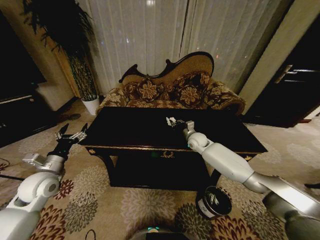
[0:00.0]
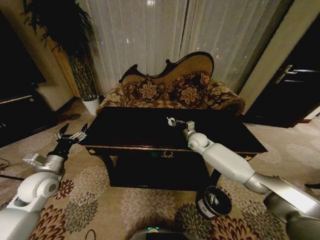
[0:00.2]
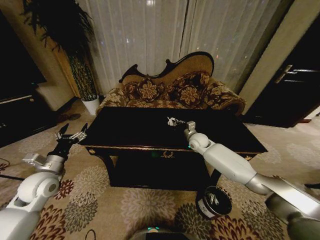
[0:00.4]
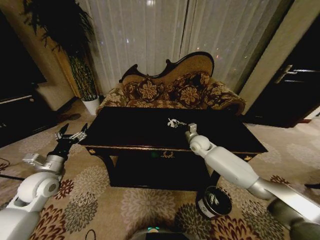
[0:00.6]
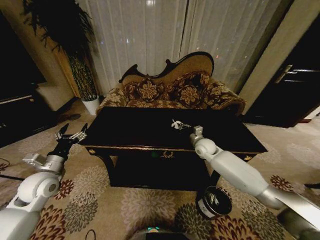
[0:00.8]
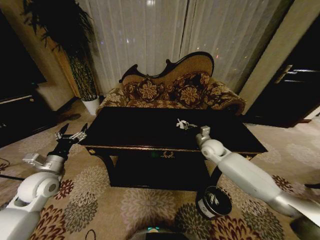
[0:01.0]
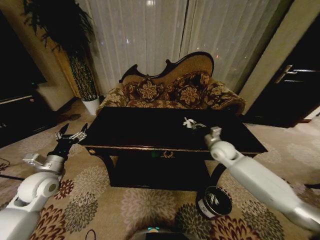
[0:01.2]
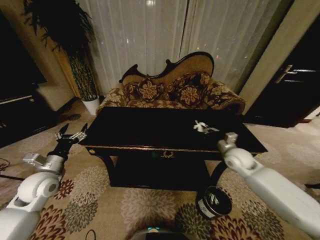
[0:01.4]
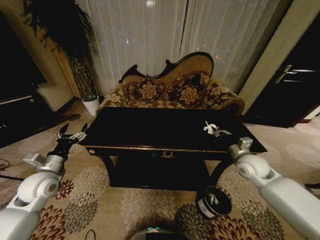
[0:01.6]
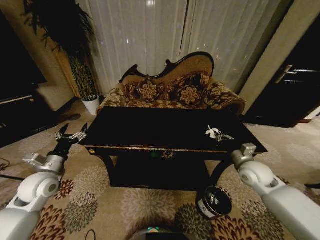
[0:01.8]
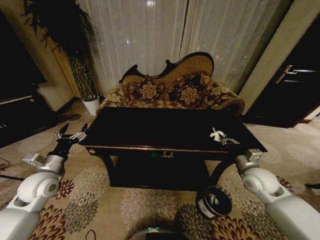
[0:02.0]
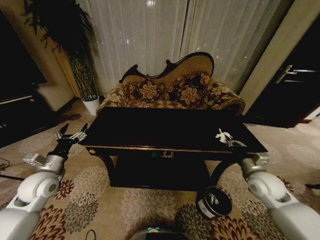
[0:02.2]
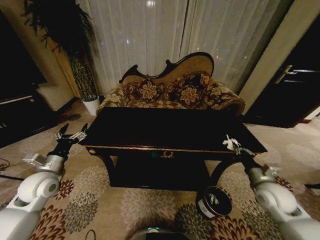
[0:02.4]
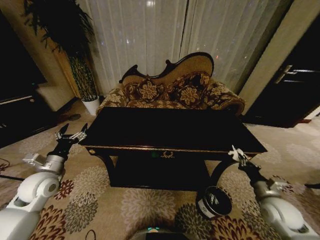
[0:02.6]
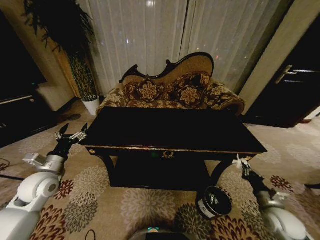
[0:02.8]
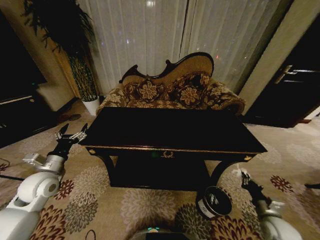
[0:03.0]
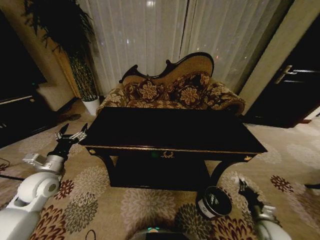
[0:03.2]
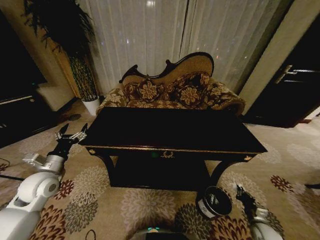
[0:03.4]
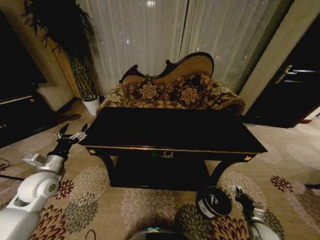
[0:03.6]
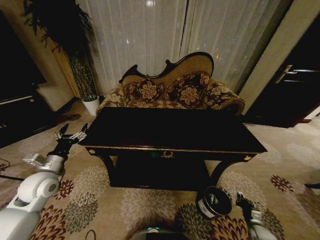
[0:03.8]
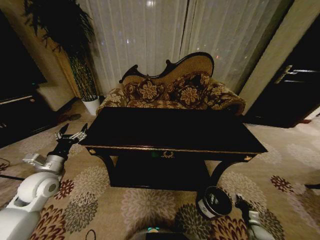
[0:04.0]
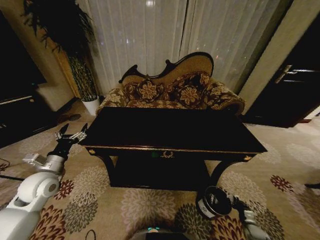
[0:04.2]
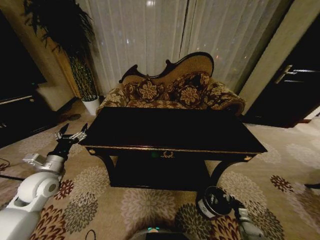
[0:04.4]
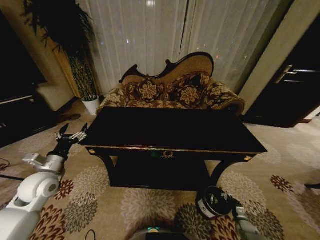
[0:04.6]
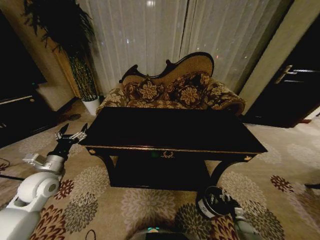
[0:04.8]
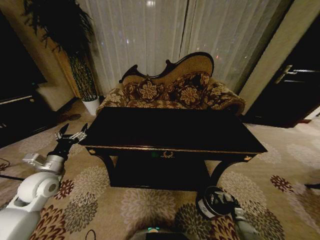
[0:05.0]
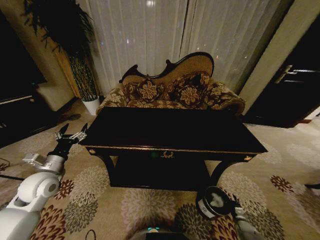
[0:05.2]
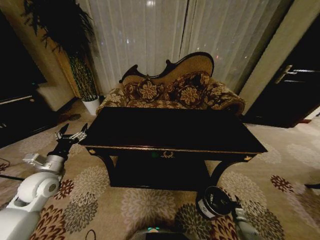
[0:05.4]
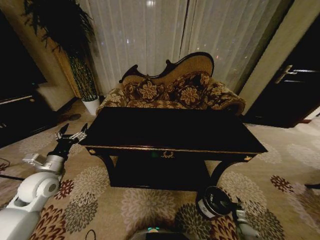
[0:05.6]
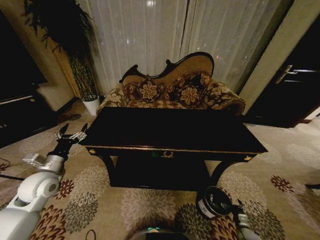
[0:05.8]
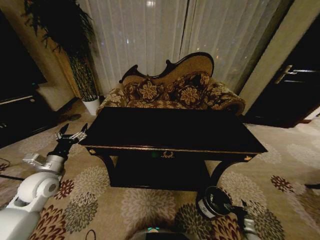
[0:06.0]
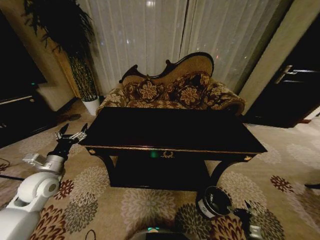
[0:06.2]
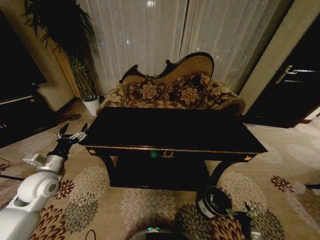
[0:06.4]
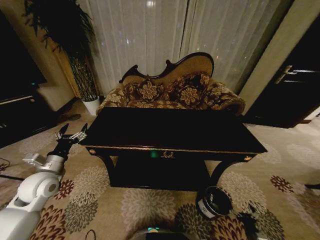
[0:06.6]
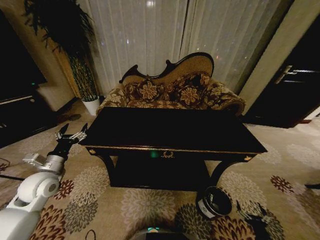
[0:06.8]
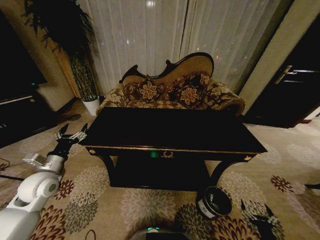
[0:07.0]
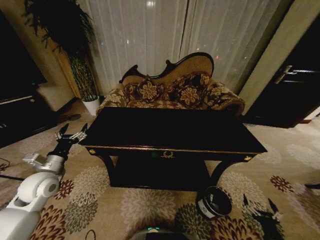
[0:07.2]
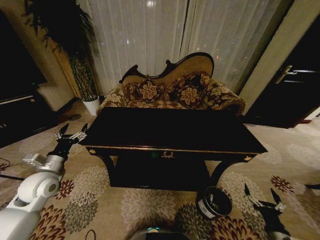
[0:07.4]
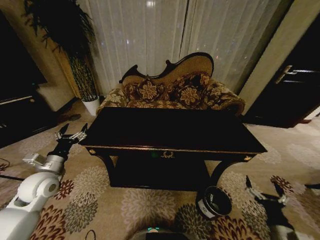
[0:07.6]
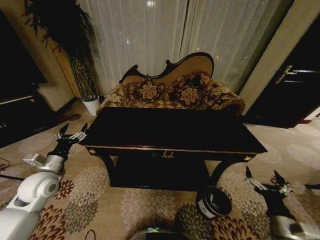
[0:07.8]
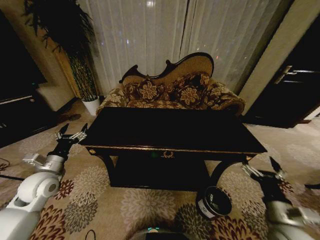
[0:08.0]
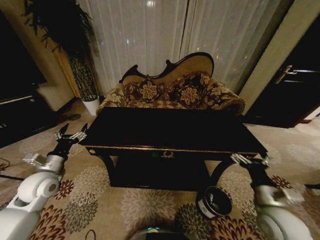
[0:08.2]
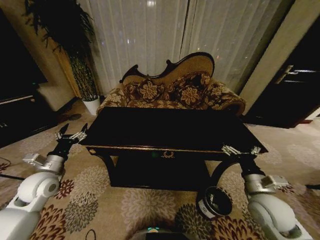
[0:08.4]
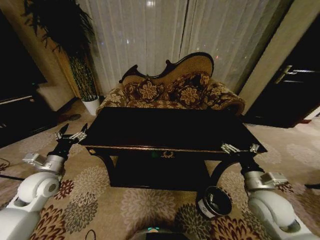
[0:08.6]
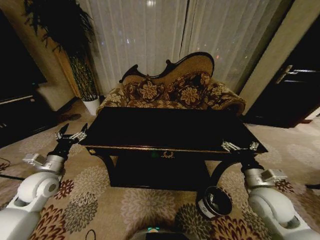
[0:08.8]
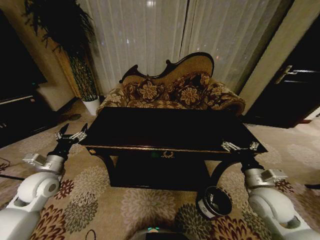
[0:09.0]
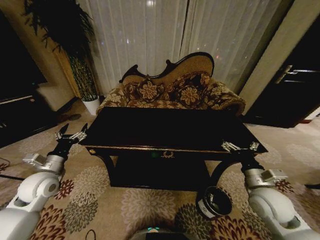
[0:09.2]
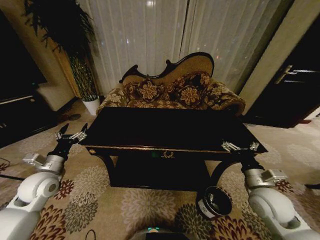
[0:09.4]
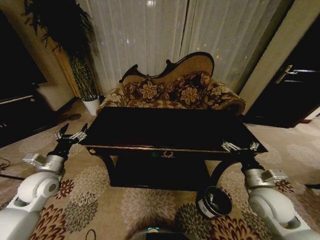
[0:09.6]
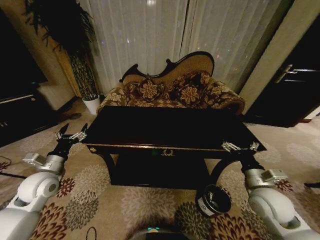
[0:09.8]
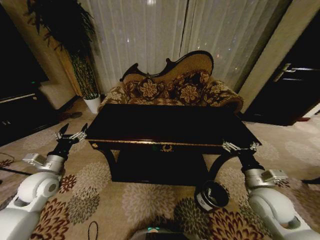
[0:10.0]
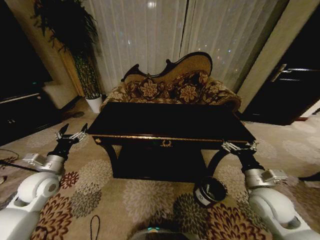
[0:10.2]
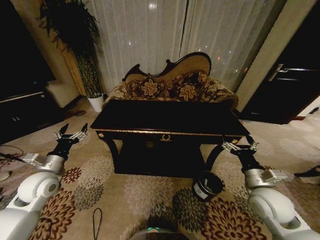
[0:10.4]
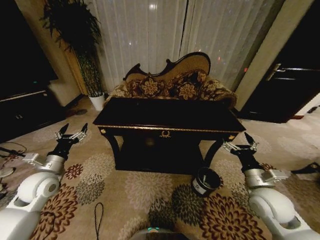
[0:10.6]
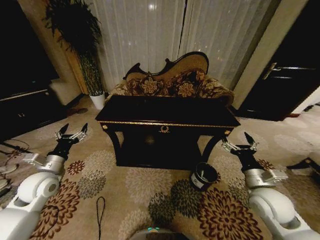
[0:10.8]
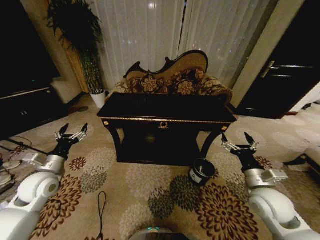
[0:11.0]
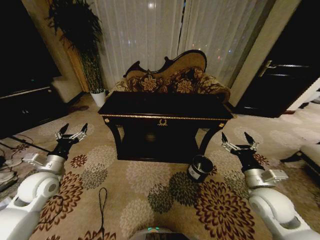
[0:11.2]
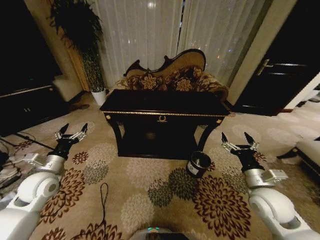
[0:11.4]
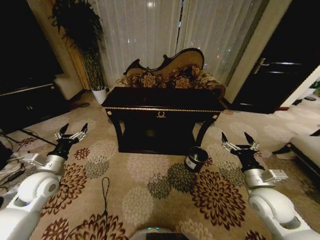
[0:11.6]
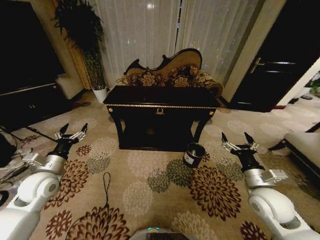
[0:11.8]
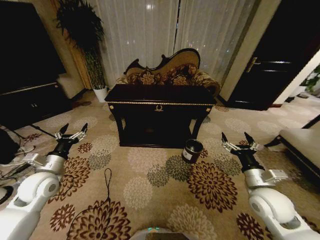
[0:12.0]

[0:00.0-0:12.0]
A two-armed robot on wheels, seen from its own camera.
Task of the whole recording: Move to the front of the table and place the trash on the table into the trash bin.
0:00.0 to 0:01.6: The right gripper heads backward and to the right, covering about 25 cm.
0:01.6 to 0:03.0: The right gripper goes about 25 cm backward, downward and to the right.
0:03.0 to 0:04.4: The right gripper heads downward, covering about 25 cm.
0:04.4 to 0:06.0: The right gripper is displaced backward by roughly 5 cm, and opens.
0:06.0 to 0:07.6: The right gripper shifts about 25 cm upward.
0:07.6 to 0:09.0: The right gripper shifts roughly 20 cm forward, upward and to the left.
